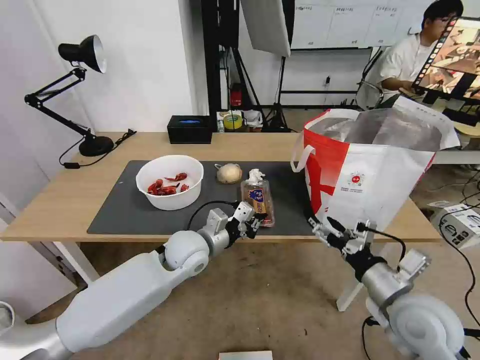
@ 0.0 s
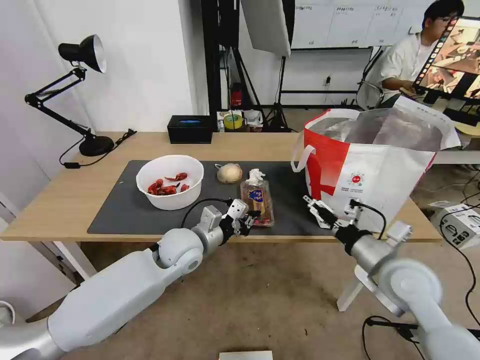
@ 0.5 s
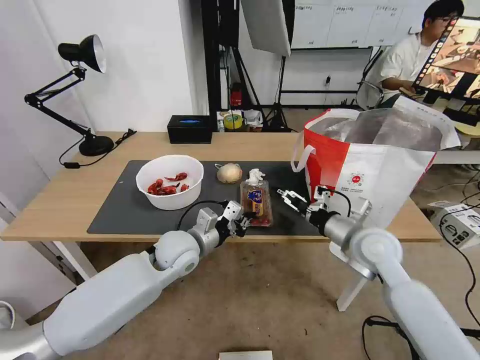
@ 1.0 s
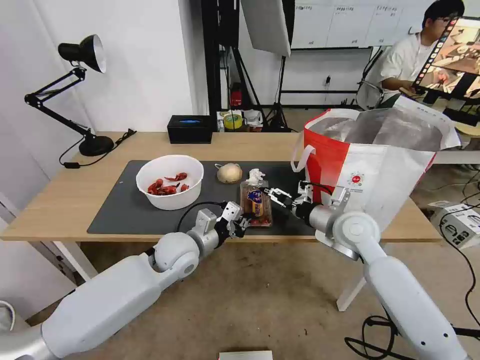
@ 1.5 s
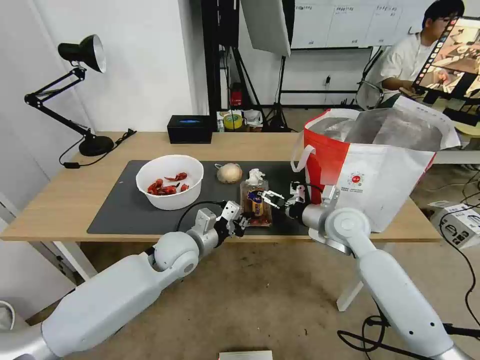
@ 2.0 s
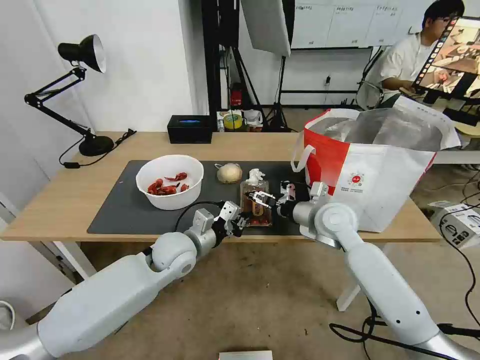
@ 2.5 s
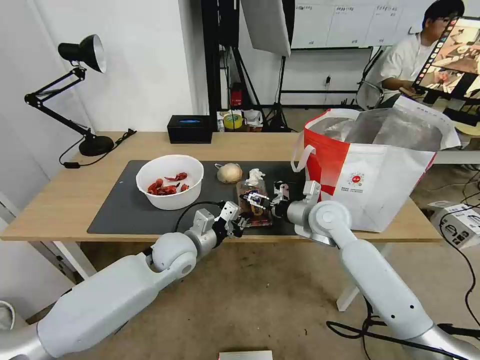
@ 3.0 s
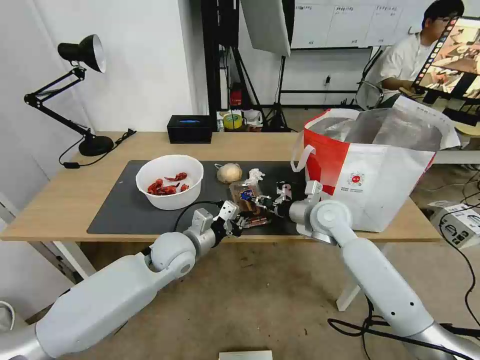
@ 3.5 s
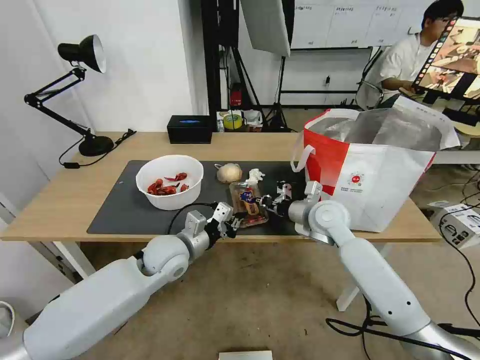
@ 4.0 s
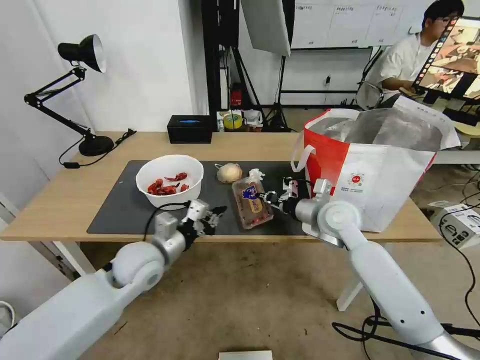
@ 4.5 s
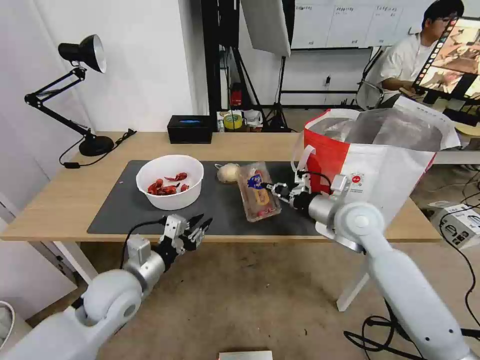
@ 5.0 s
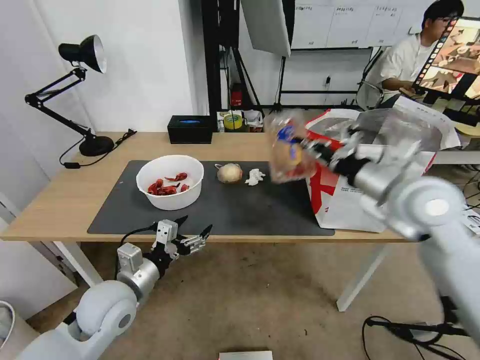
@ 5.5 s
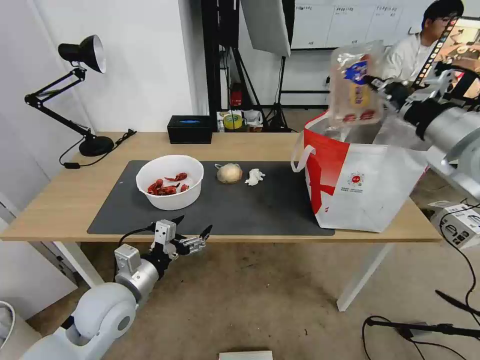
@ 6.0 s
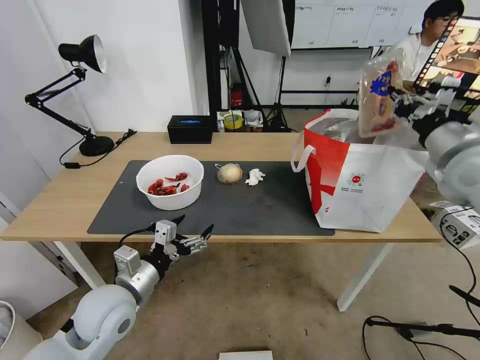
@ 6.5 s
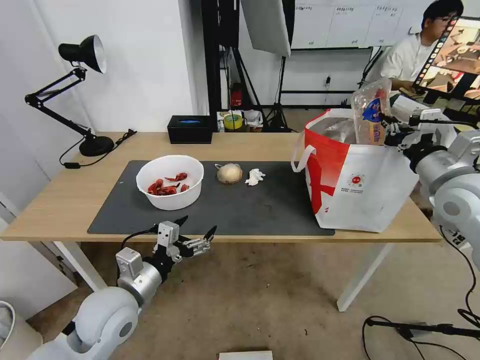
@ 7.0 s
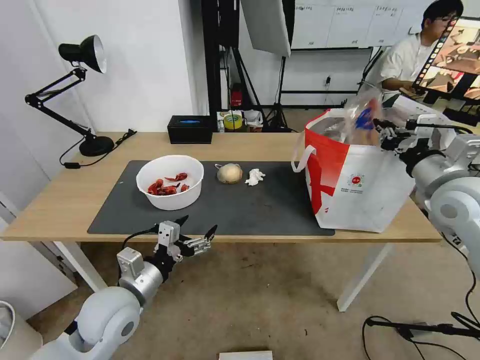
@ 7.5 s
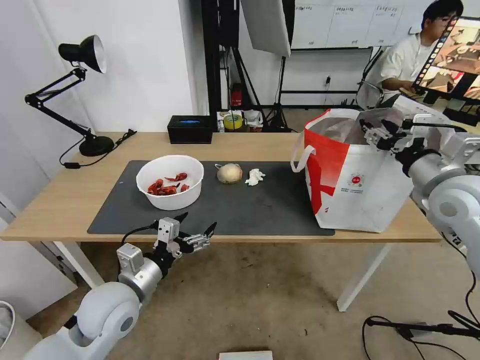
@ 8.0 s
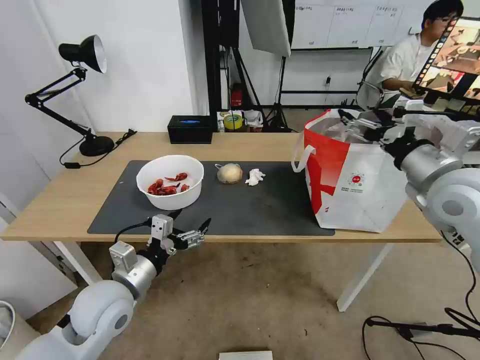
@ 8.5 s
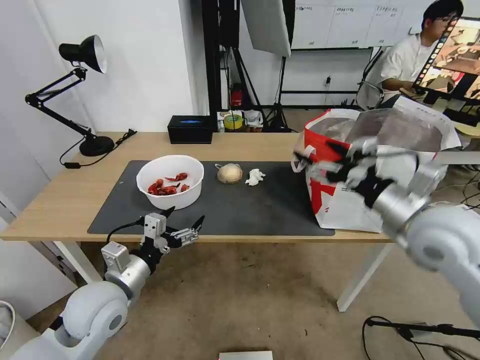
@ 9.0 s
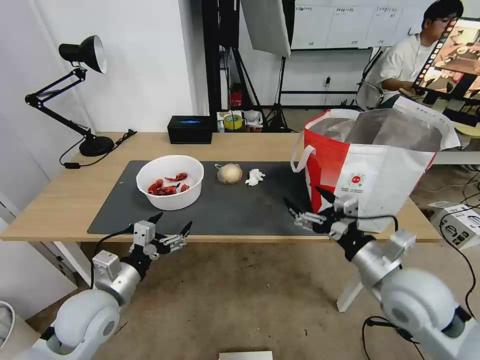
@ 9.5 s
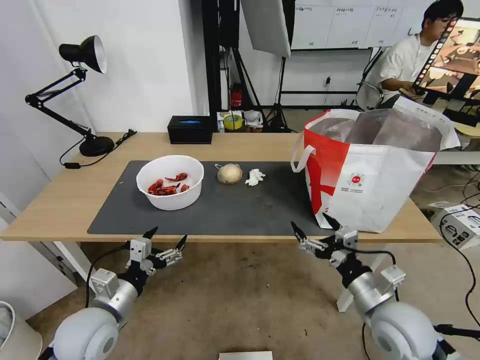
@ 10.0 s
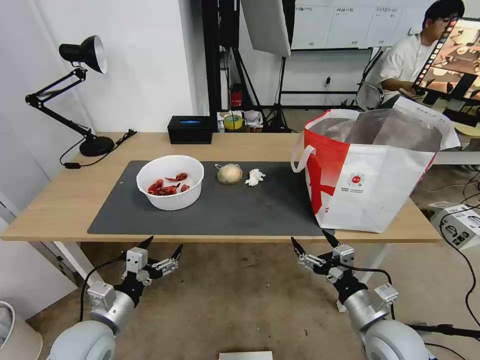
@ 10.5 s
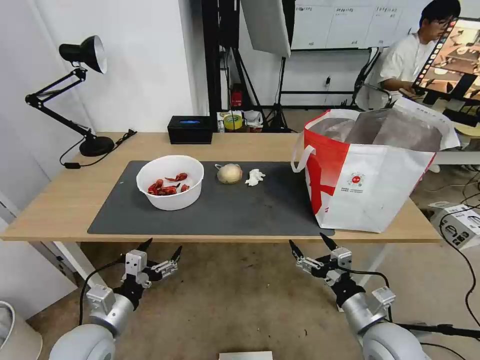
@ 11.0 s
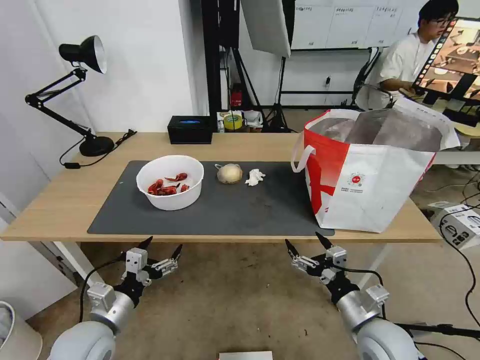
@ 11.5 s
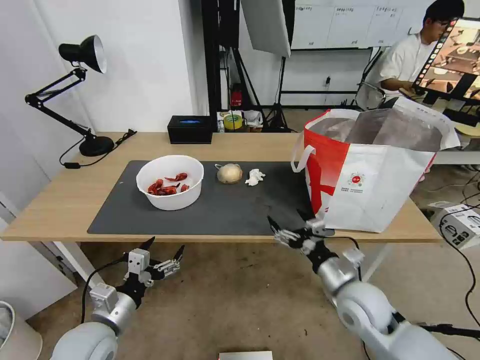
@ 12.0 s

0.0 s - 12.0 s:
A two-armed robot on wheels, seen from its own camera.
Task of the whole recording: Pick up the trash from the table and place it into the takeout bag.
0.0 s - 2.0 s: The right gripper shifts approximately 20 cm forward.
2.0 s - 4.0 s: The right gripper closes up.
4.0 s - 6.0 s: The right gripper moves upward and to the right, roughly 30 cm. The left gripper goes approximately 15 cm backward and to the left, and opens.
6.0 s - 8.0 s: The right gripper travels downward by some 10 cm, and opens up.
8.0 s - 10.0 s: The left gripper shifts by some 5 cm. Meanwhile the right gripper goes roughly 25 cm downward, backward and to the left, and opens up.
10.0 s - 12.0 s: The right gripper travels forward by roughly 5 cm.

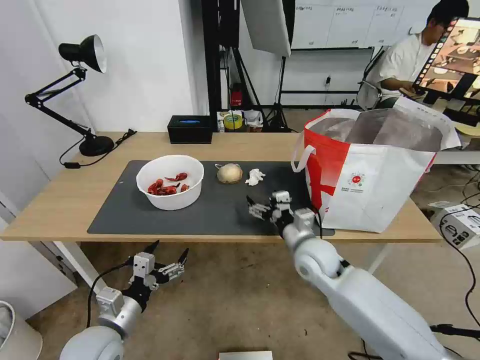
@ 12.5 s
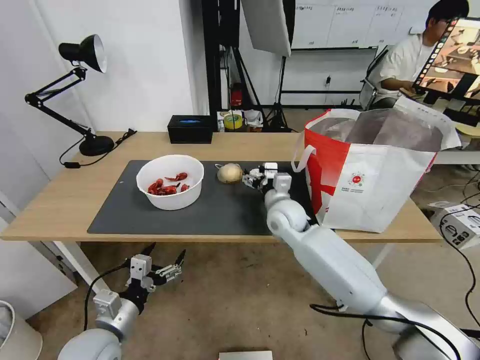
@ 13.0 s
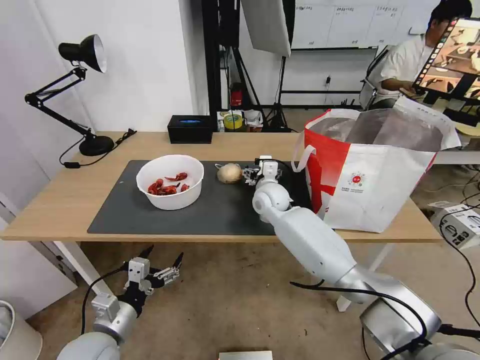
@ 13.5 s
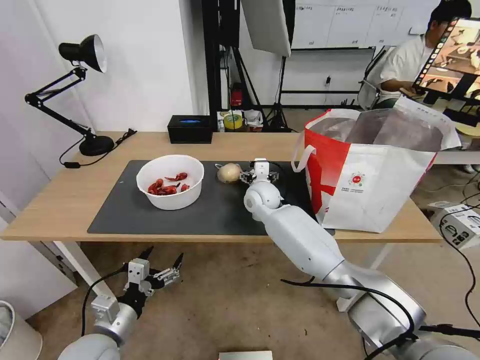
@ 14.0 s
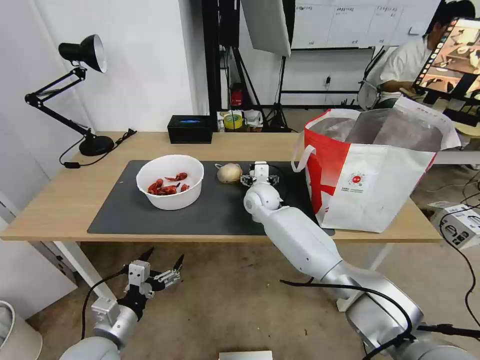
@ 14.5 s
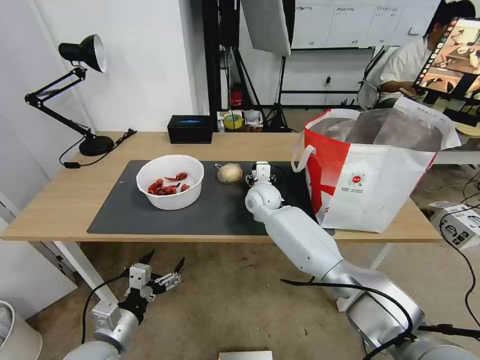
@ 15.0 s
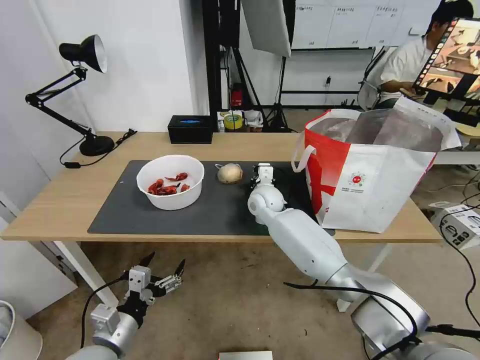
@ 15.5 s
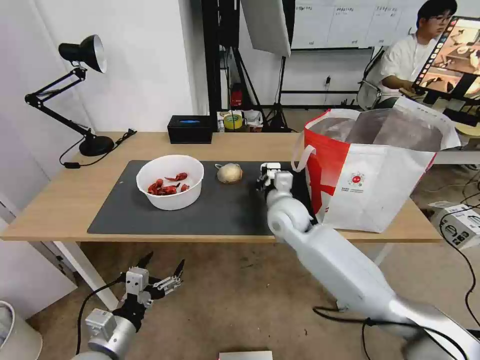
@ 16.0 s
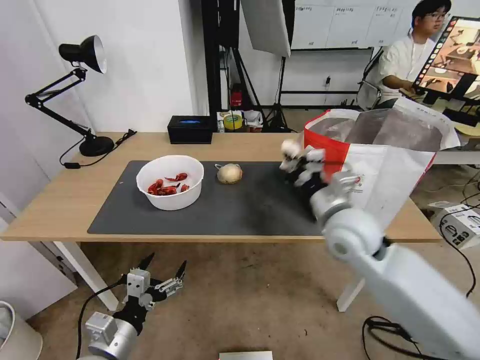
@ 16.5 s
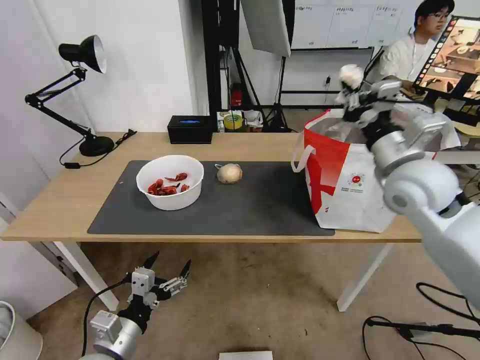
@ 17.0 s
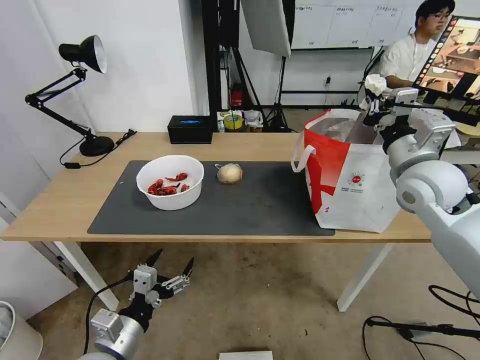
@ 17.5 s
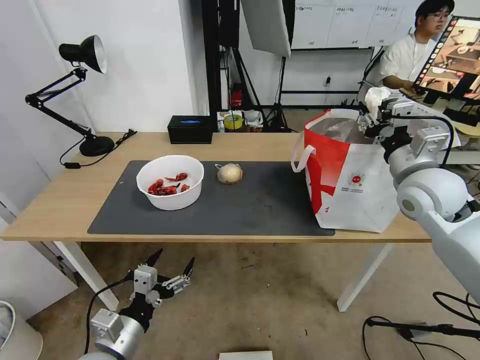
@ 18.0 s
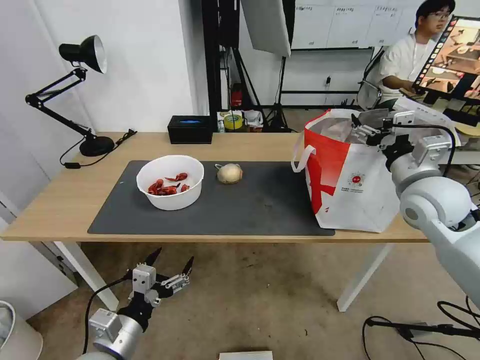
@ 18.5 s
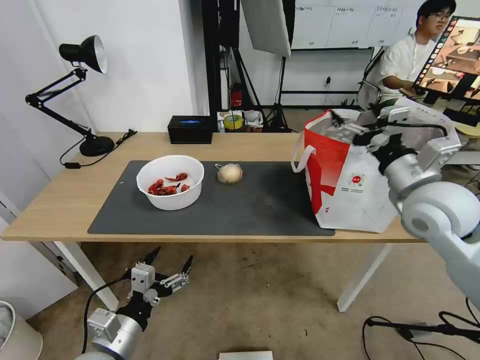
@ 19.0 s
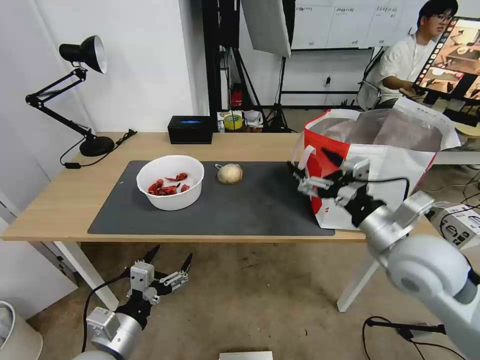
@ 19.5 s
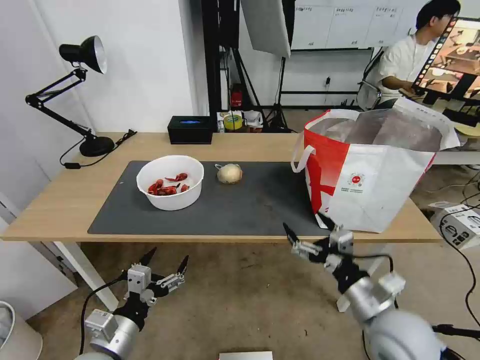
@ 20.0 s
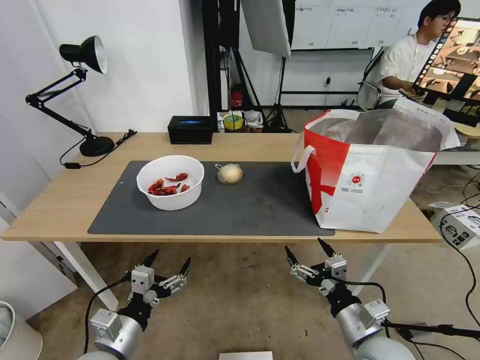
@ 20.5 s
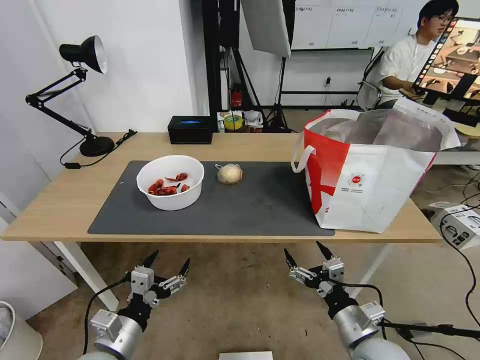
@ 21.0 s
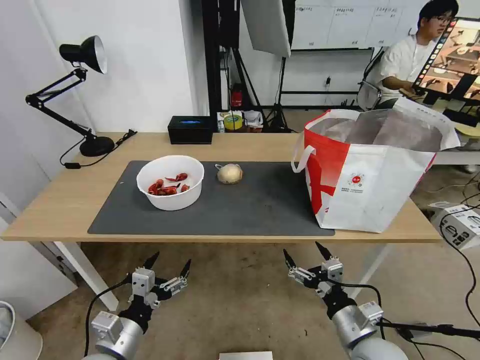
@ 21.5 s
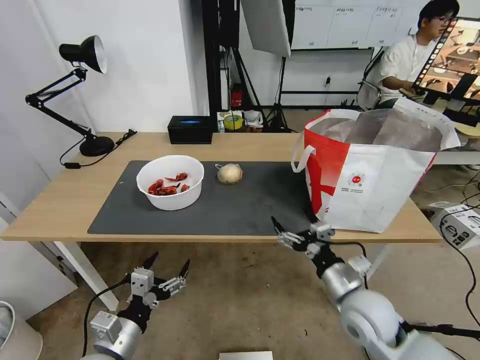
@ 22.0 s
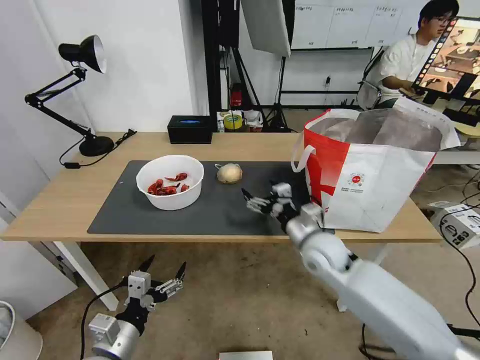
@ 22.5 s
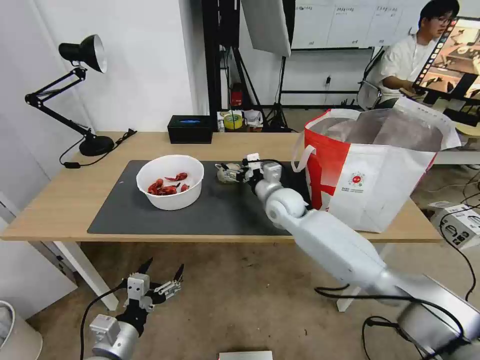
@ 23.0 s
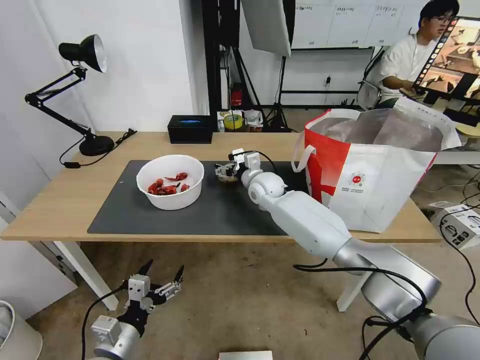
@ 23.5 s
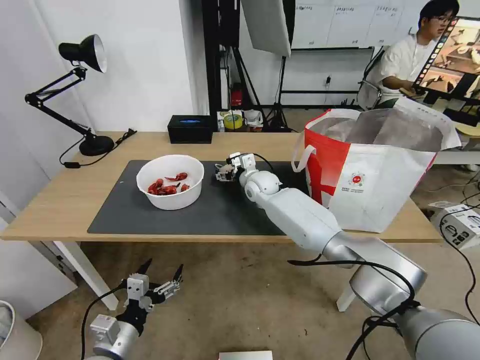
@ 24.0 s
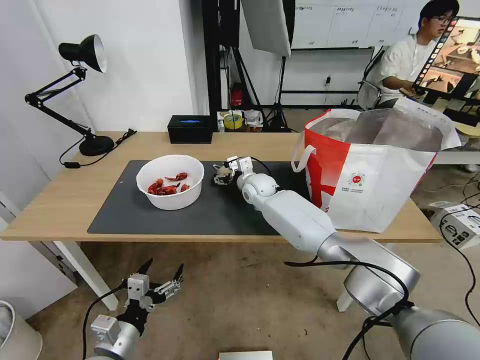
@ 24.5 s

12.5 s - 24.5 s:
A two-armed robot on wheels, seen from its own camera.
Task of the whole recording: Pick up the trash from the table and place it into the takeout bag.
12.5 s - 14.5 s: The right gripper is displaced forward and to the left by roughly 20 cm.
14.5 s - 16.5 s: The right gripper heads backward, to the right and upward, covering roughly 25 cm, and closes up.
16.5 s - 18.5 s: The right gripper is displaced to the right by approximately 15 cm, and opens.
18.5 s - 20.5 s: The right gripper travels backward, downward and to the left by approximately 30 cm.
20.5 s - 22.5 s: The right gripper heads forward, covering some 20 cm.
22.5 s - 24.5 s: The right gripper travels forward and to the left by about 25 cm.

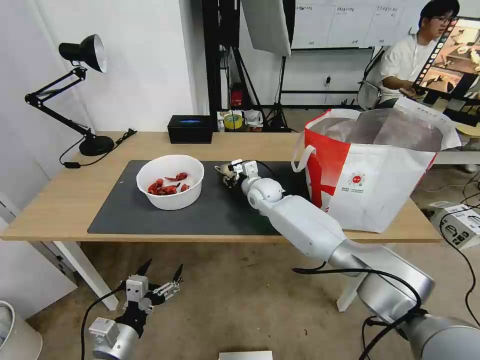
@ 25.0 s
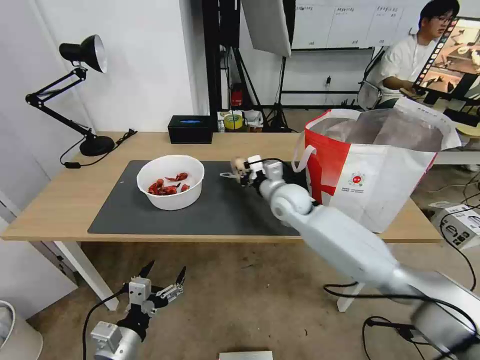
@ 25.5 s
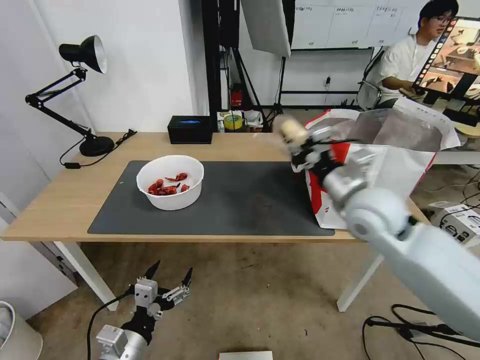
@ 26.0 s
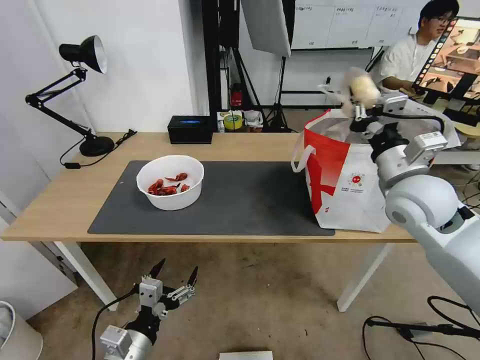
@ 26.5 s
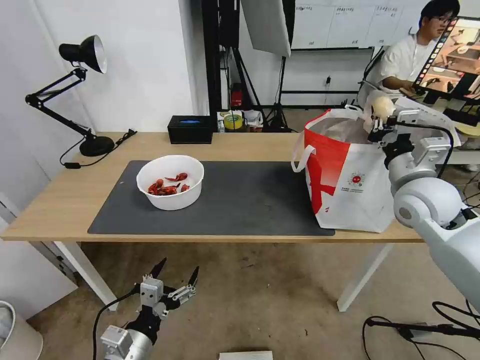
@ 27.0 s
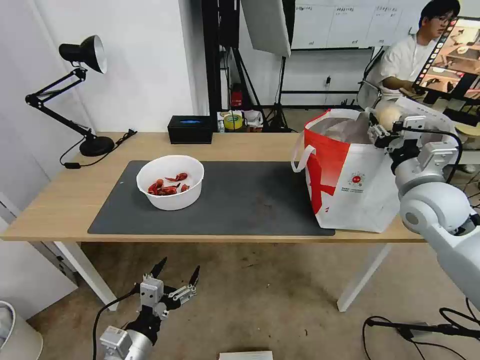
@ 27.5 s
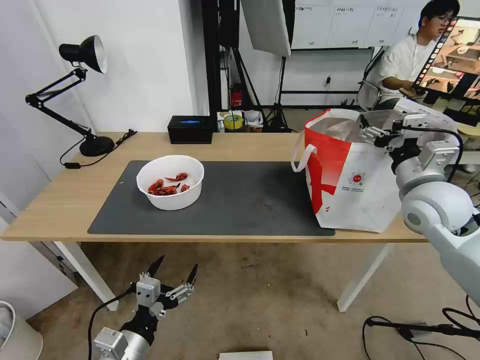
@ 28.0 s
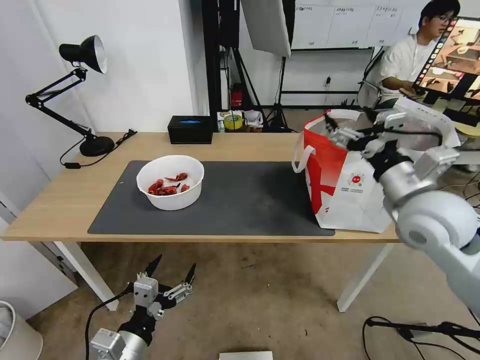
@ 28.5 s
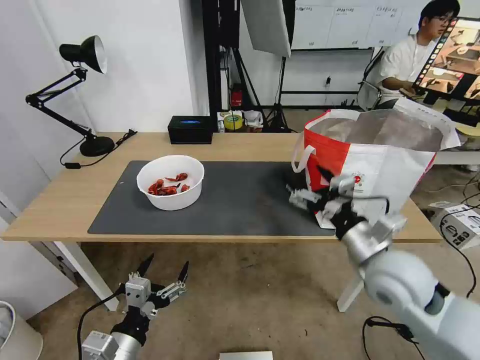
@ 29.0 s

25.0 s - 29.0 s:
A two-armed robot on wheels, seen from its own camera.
Task of the whole recording: Pick up the trash from the table and place it into the takeout bag.
25.0 s - 27.0 s: The right gripper is displaced to the right, backward and upward by roughly 35 cm, and closes up.
27.0 s - 29.0 s: The right gripper moves backward, to the left and downward, about 15 cm, and opens its fingers.
